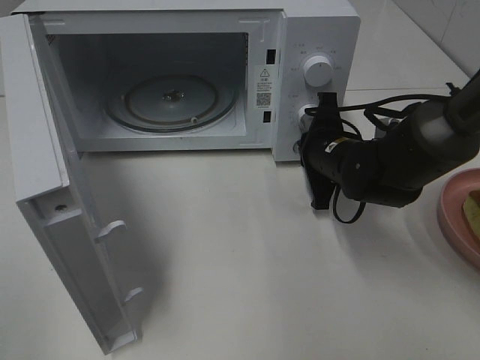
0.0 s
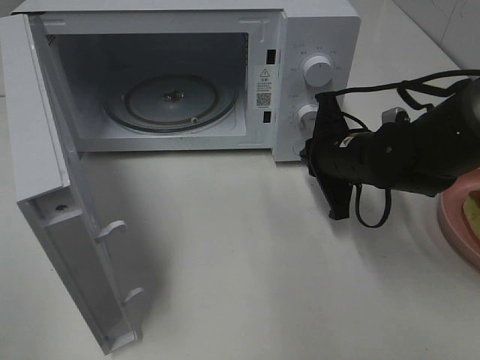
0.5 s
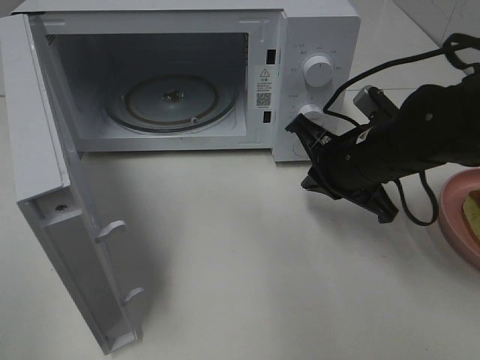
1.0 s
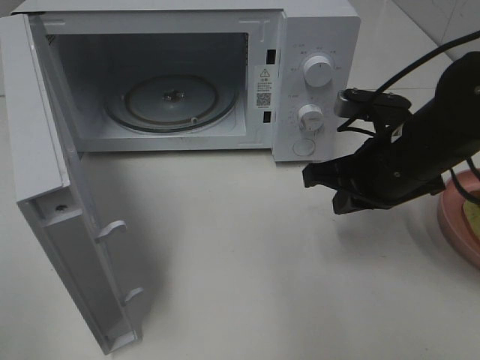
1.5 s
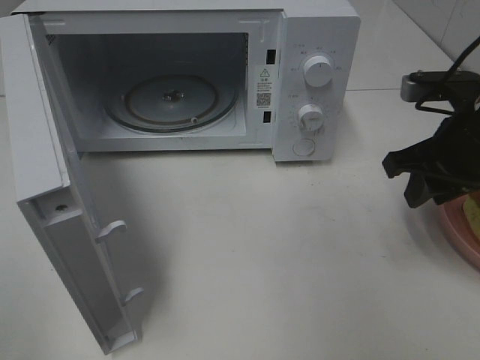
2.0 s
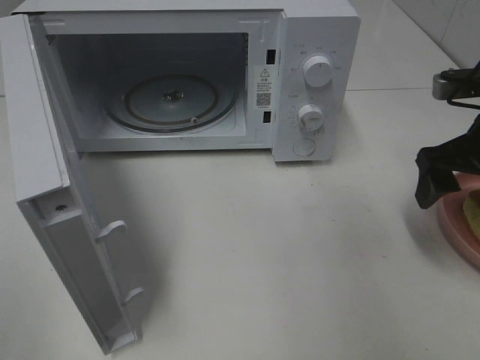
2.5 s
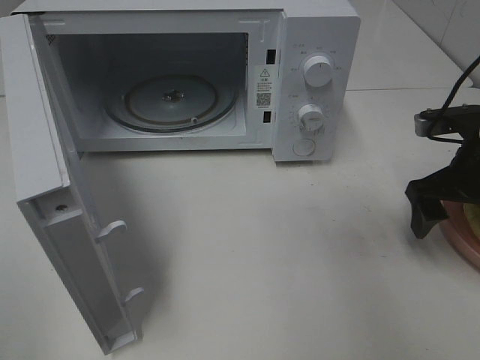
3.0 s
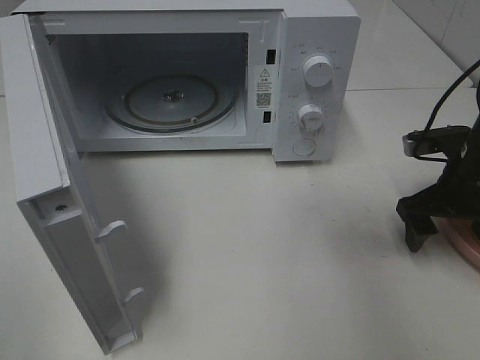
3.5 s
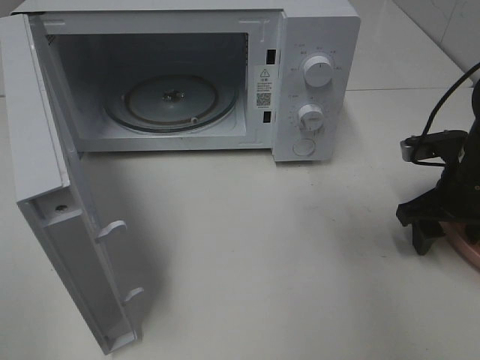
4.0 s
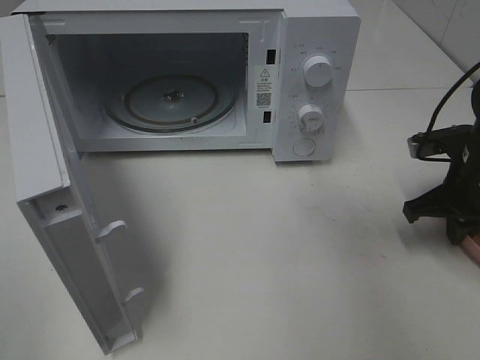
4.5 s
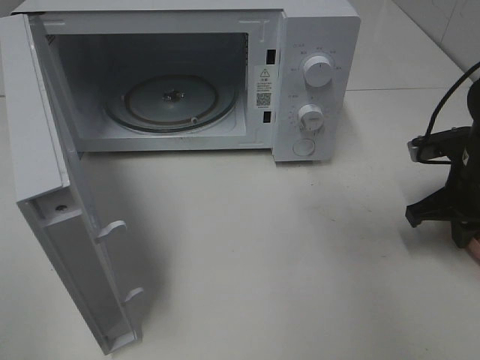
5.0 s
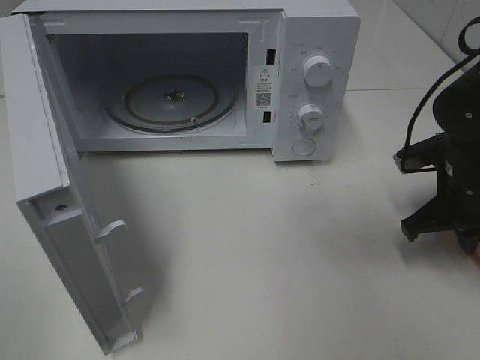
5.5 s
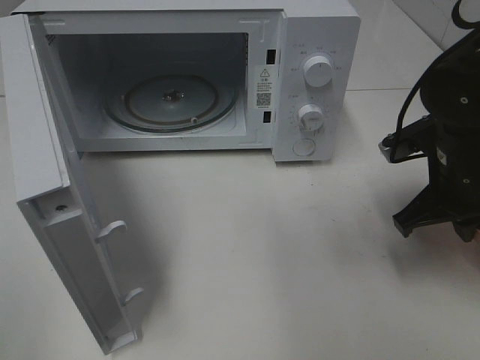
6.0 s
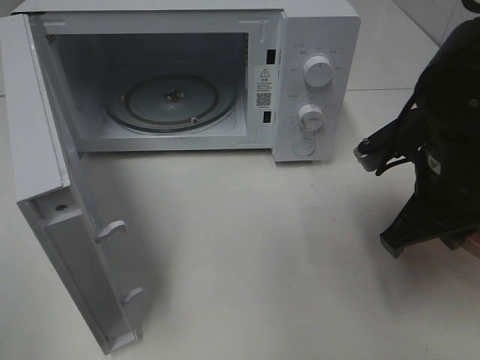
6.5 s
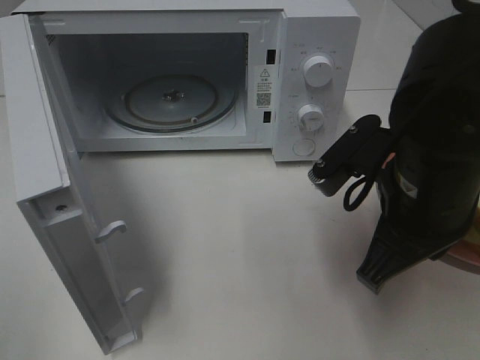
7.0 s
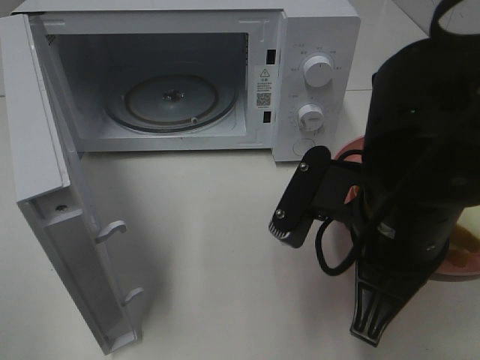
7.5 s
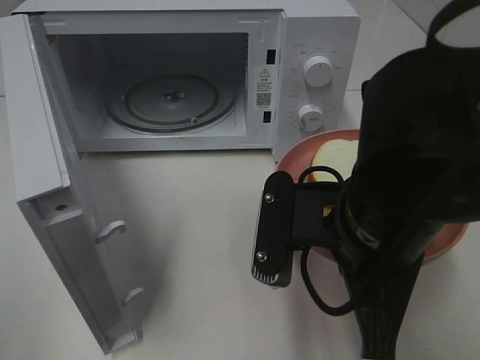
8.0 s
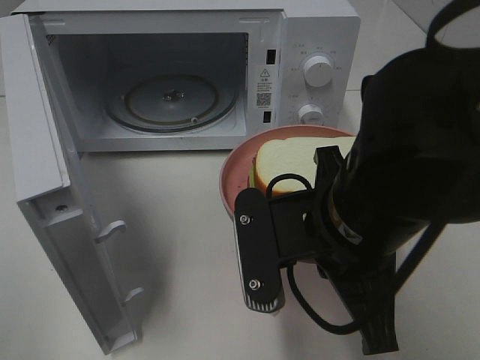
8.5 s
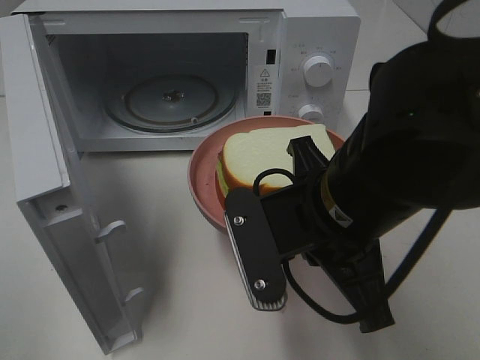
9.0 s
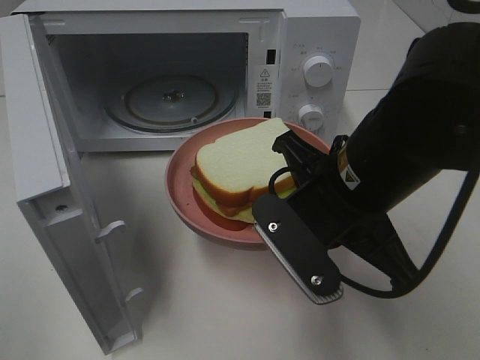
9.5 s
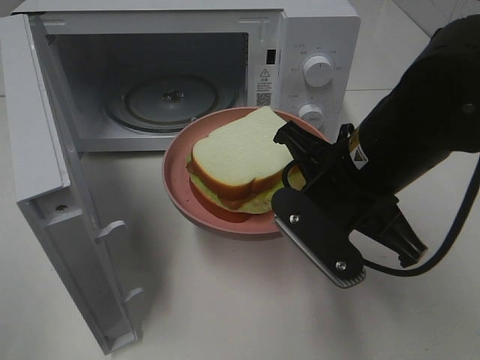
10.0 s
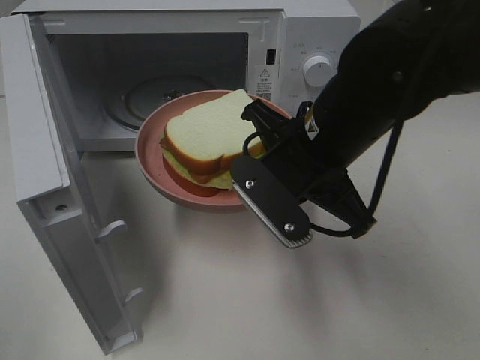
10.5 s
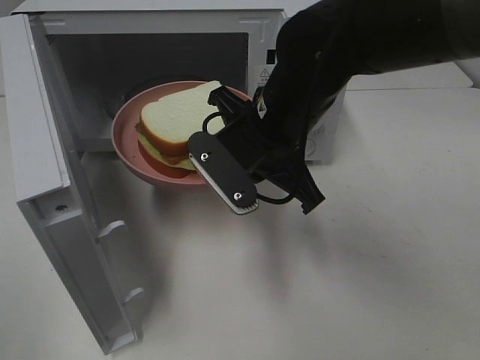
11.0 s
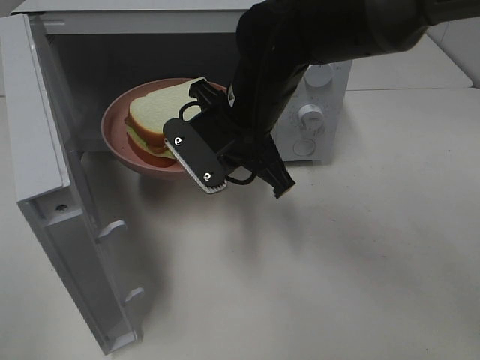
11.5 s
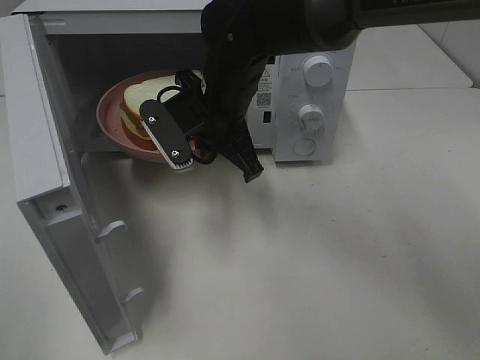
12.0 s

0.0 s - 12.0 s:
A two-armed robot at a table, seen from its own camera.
Task of the whole recording: Heat Sandwich.
Step, 0.5 s - 4.0 s: Right hand: grab the plate with the sandwich.
0.0 s - 2.0 s: The right gripper is displaced upward, to the right and backward by approximately 15 cm, and opens up.
2.0 s - 4.0 s: The right gripper goes about 10 cm downward, and opens up.
4.0 s - 6.0 s: The right gripper goes some 5 cm to the left, and closes.
6.0 s - 8.0 s: The right gripper is displaced to the left and backward by about 15 cm.
8.0 s - 10.0 s: The right gripper shifts about 5 cm forward.
10.0 s - 12.0 s: The right gripper moves forward and to the left, roughly 20 cm.

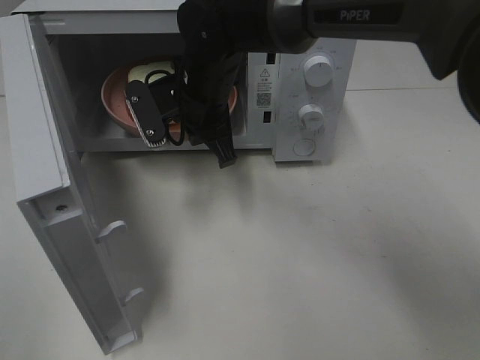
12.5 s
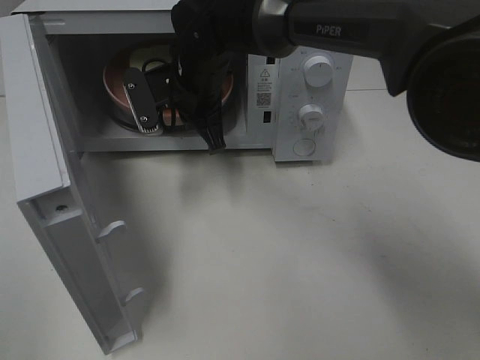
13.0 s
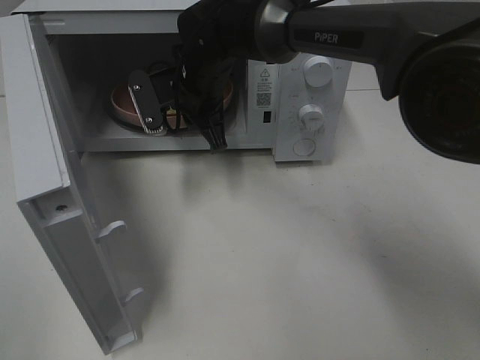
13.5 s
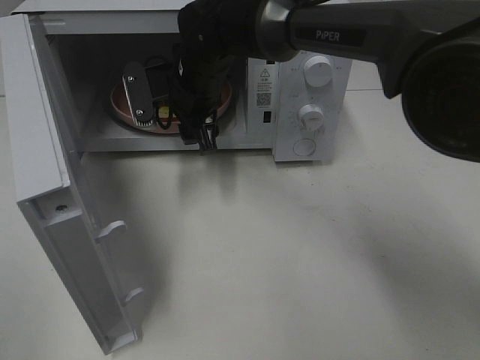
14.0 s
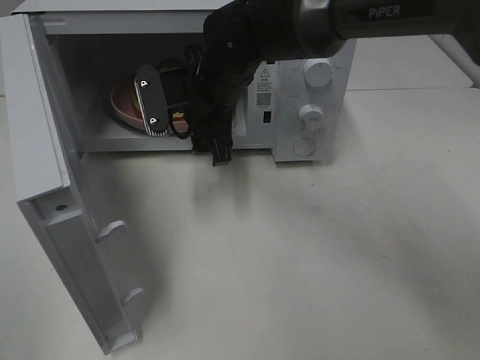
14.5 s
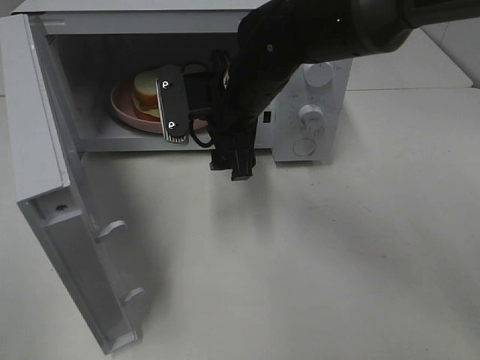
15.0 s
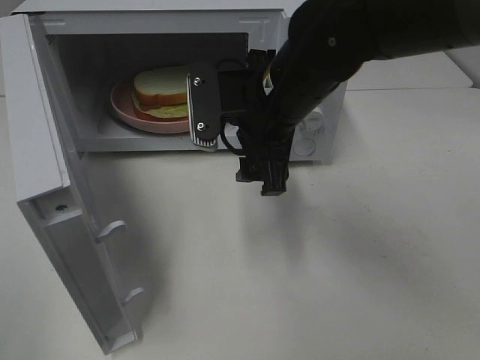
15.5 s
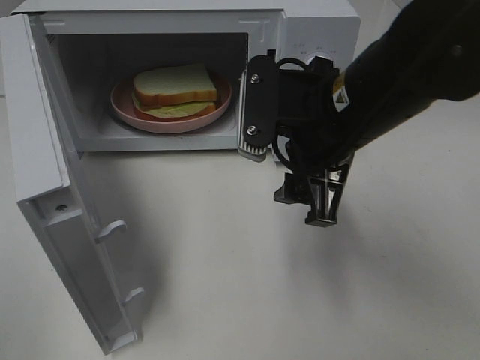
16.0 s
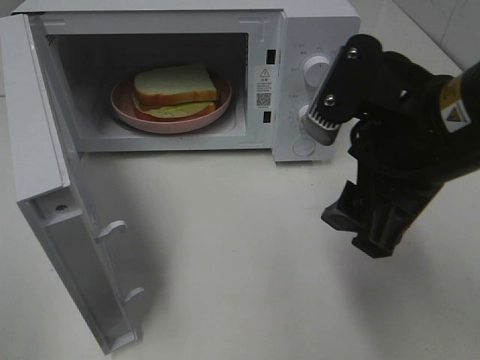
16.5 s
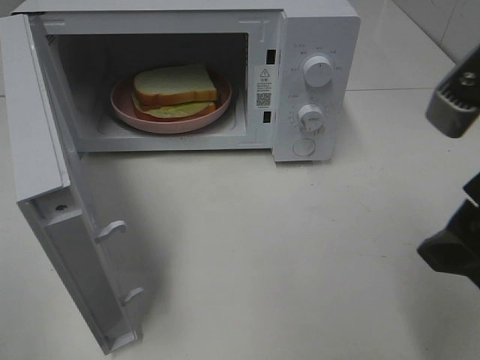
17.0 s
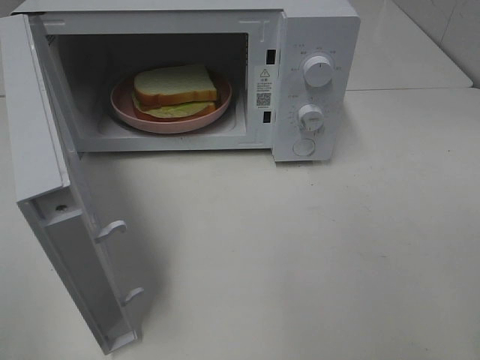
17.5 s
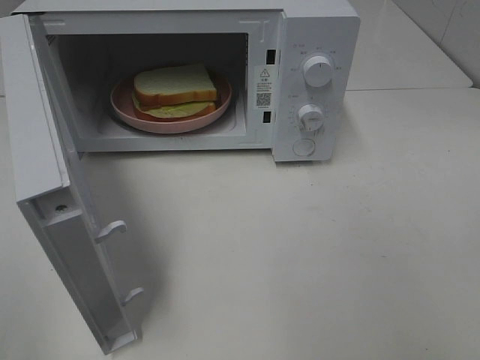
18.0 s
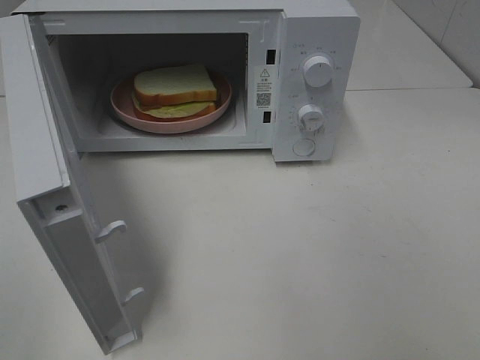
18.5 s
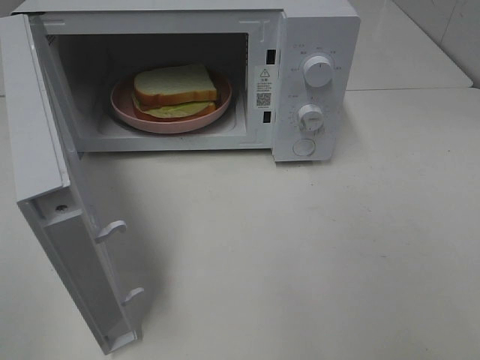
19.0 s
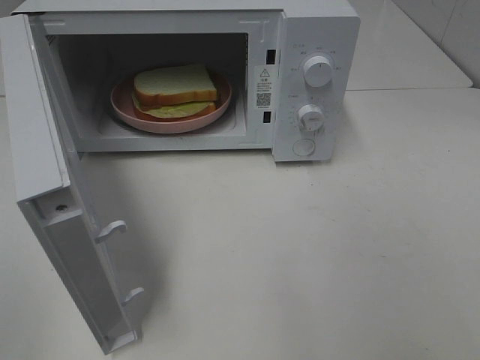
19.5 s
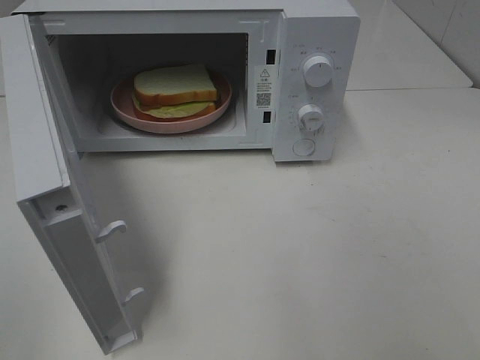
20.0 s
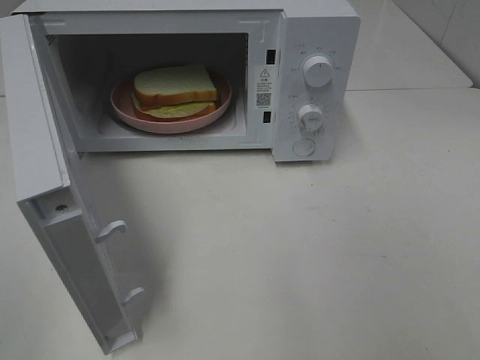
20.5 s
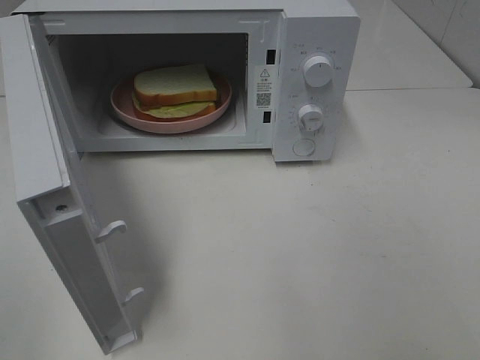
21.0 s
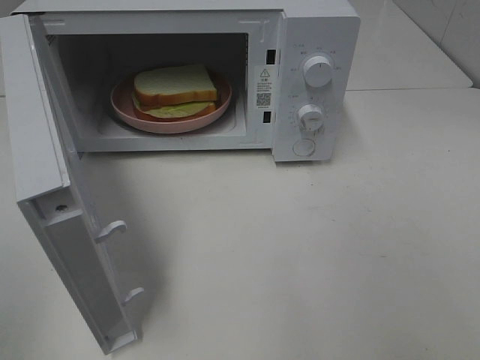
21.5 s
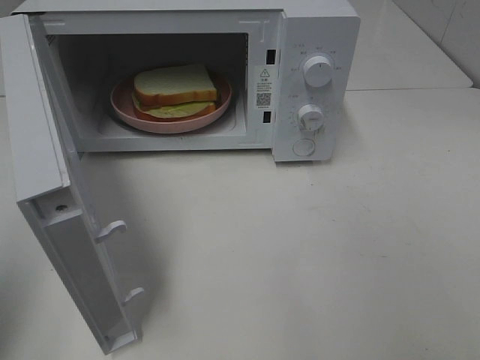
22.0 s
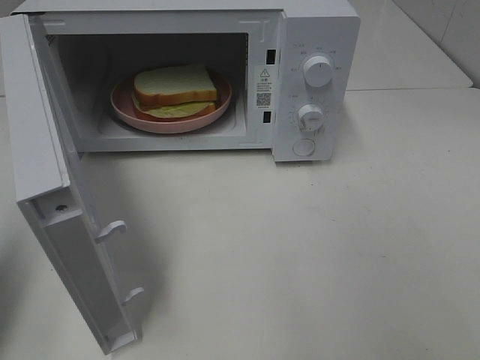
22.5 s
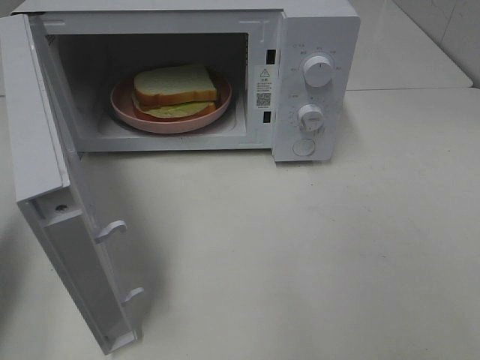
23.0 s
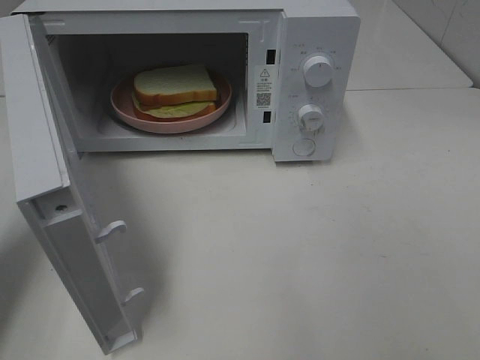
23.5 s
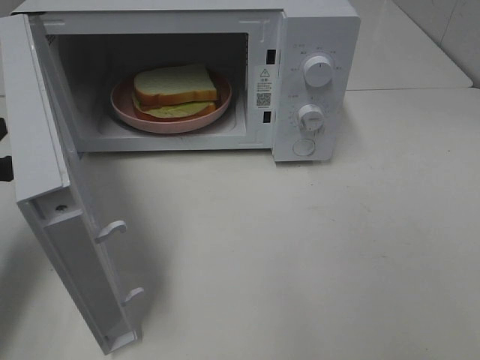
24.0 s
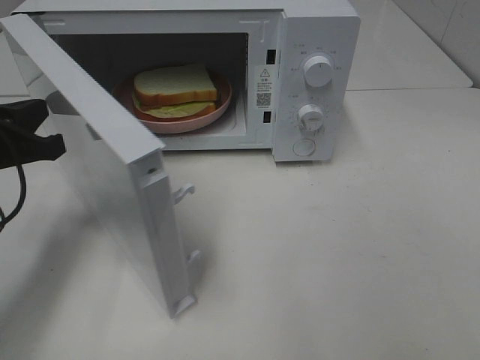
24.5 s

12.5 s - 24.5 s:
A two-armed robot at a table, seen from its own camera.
Task of the whole recording: Heat Sandwich.
12.5 s - 14.5 s: The right gripper opens.
14.5 s - 16.5 s: The right gripper is displaced backward and to the right by roughly 25 cm.
16.5 s - 18.5 s: The right gripper moves backward and to the right, approximately 25 cm.
20.5 s - 22.5 s: The left gripper shifts approximately 15 cm forward, and closes.
22.5 s - 24.5 s: The left gripper heads forward, downward and to the right, covering approximately 15 cm.

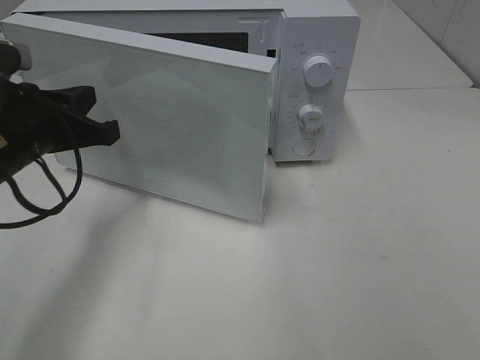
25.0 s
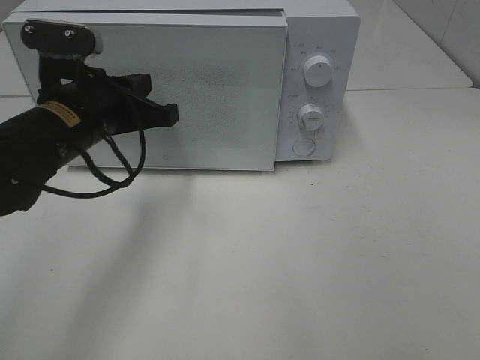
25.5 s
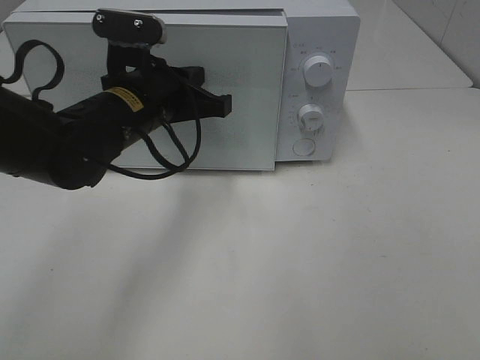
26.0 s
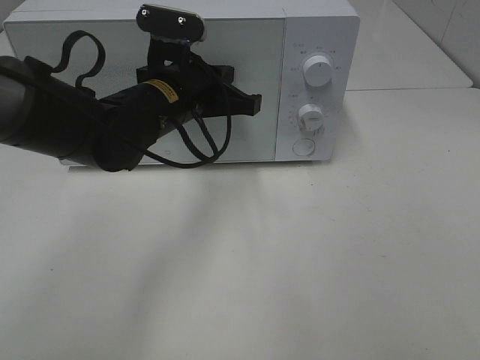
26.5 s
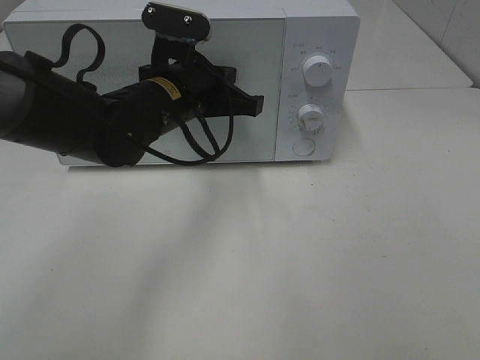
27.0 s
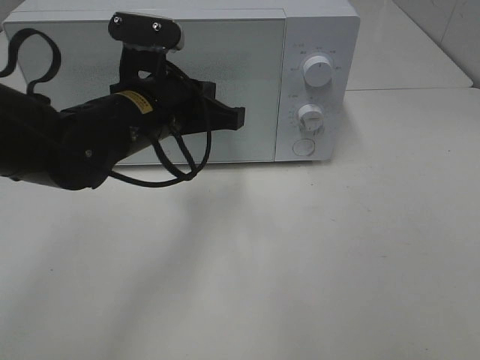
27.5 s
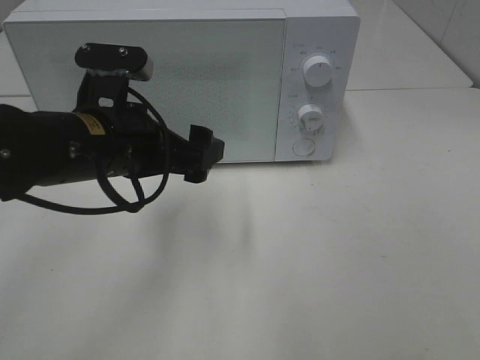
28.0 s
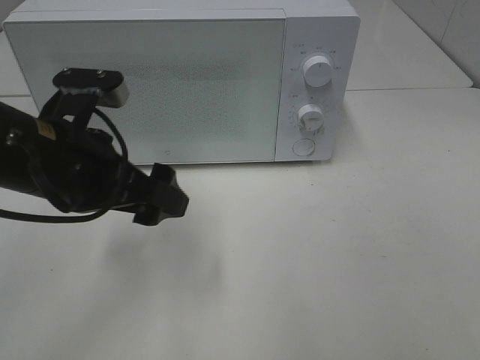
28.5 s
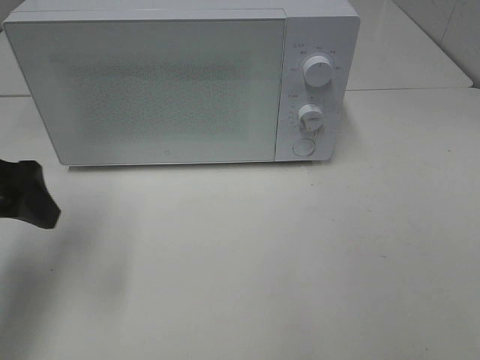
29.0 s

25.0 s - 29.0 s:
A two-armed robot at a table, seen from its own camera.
Task of the whole recording: Heat Sandwich.
Step, 25.0 s - 27.5 s: Left hand: close the microwave door.
25.0 s - 27.0 s: The left gripper moves to the right and forward, approximately 15 cm.
27.0 s - 29.0 s: The left gripper travels to the left and backward by approximately 20 cm, and opens.
